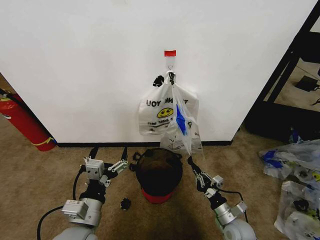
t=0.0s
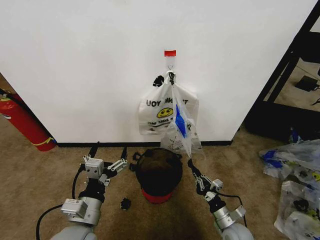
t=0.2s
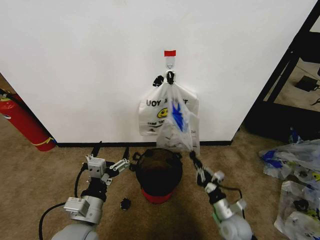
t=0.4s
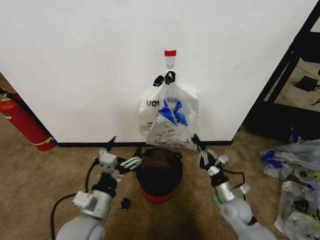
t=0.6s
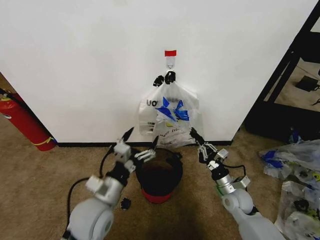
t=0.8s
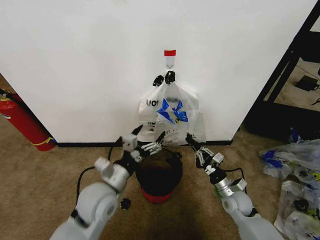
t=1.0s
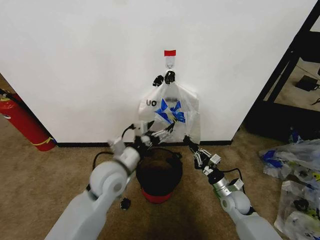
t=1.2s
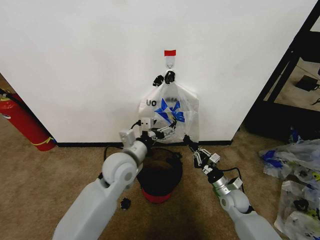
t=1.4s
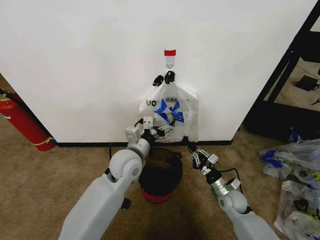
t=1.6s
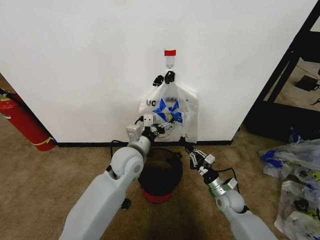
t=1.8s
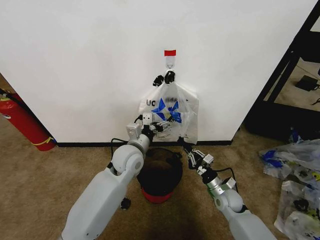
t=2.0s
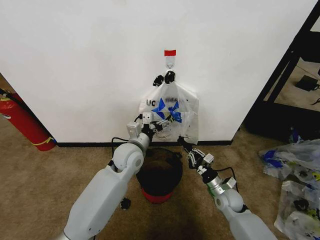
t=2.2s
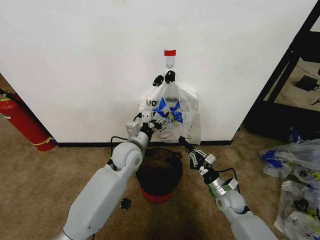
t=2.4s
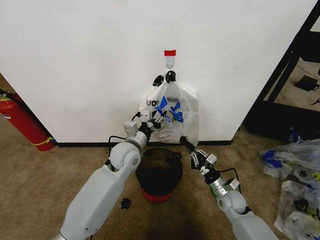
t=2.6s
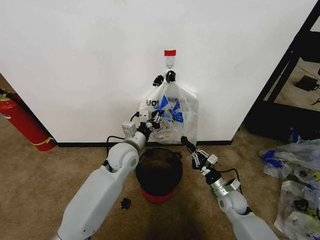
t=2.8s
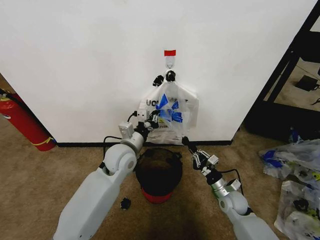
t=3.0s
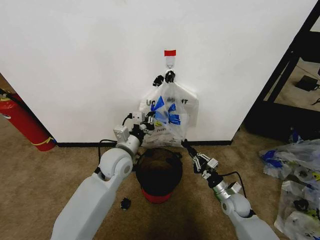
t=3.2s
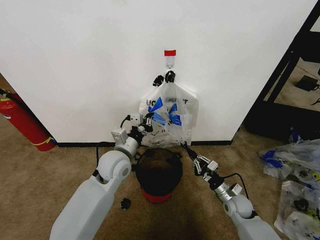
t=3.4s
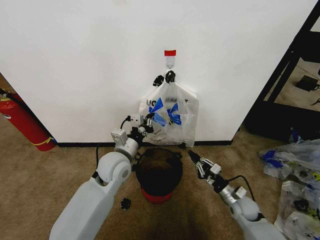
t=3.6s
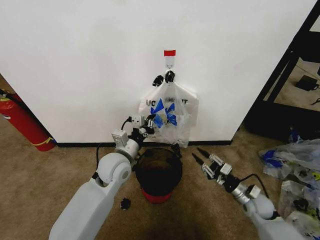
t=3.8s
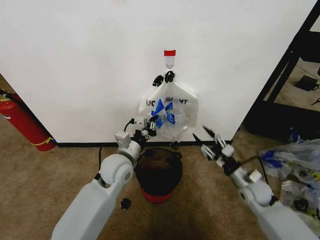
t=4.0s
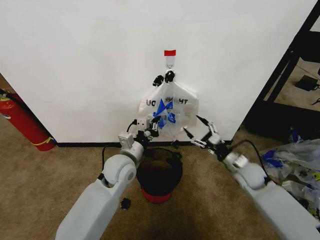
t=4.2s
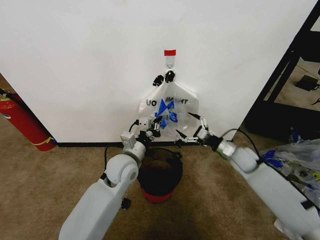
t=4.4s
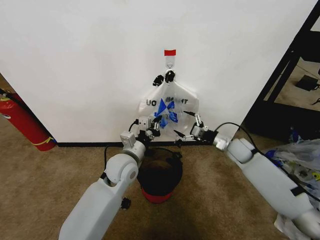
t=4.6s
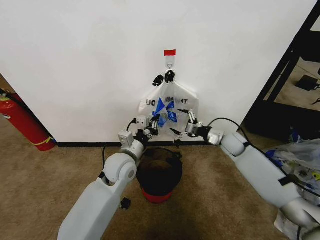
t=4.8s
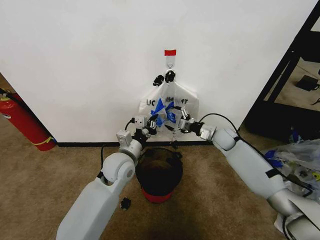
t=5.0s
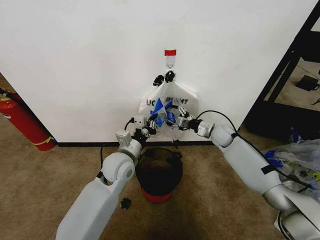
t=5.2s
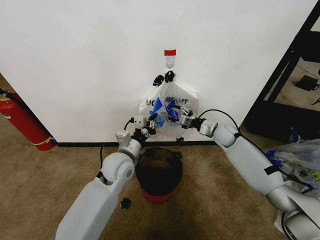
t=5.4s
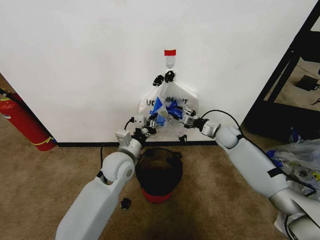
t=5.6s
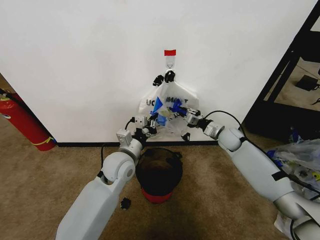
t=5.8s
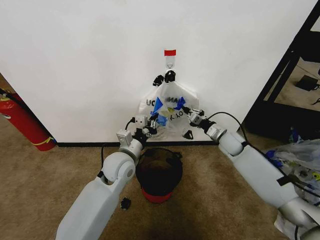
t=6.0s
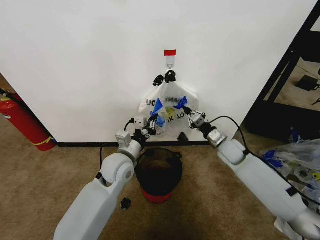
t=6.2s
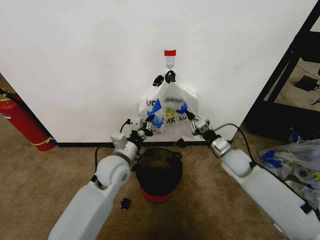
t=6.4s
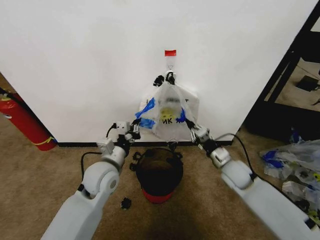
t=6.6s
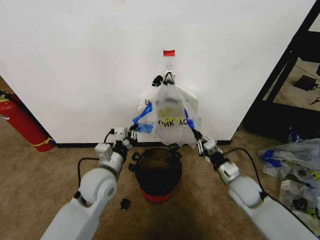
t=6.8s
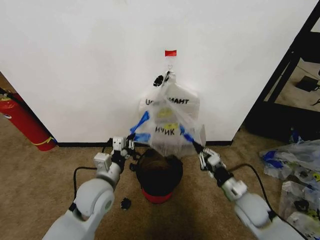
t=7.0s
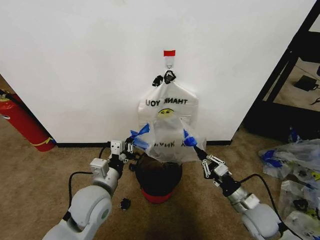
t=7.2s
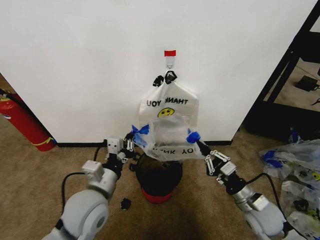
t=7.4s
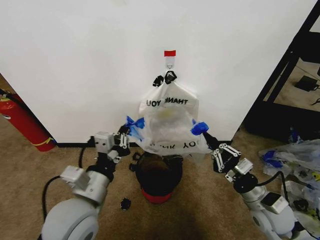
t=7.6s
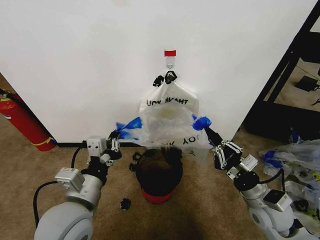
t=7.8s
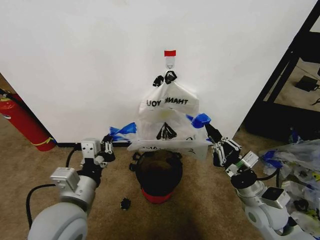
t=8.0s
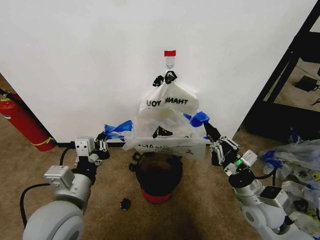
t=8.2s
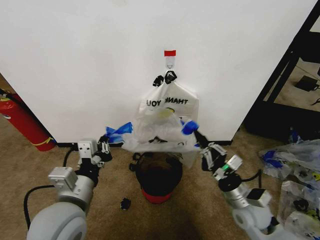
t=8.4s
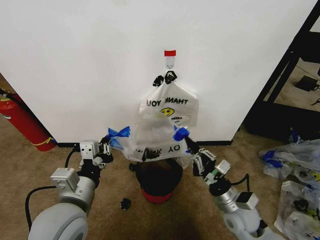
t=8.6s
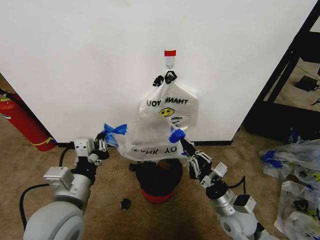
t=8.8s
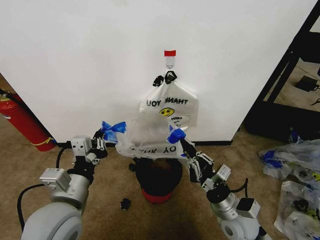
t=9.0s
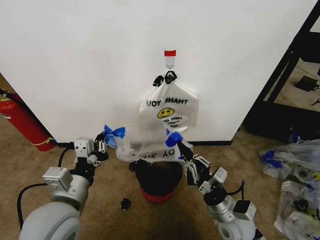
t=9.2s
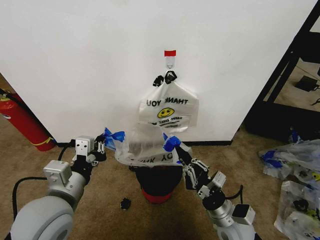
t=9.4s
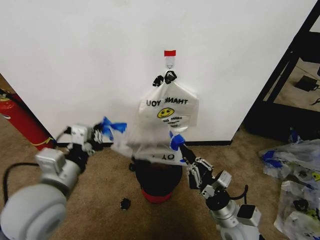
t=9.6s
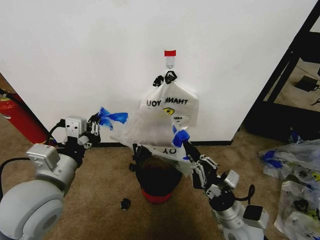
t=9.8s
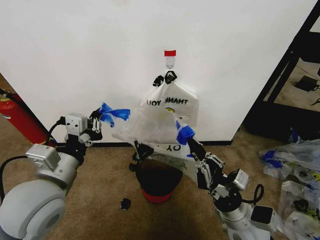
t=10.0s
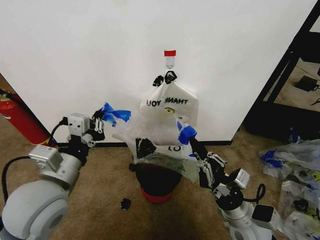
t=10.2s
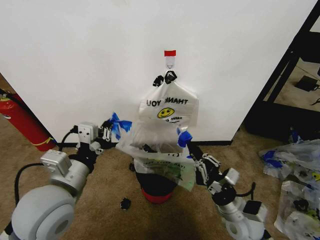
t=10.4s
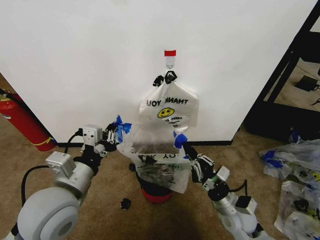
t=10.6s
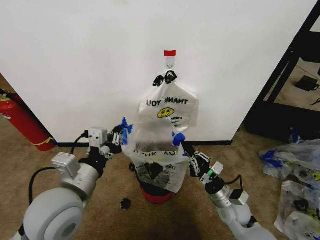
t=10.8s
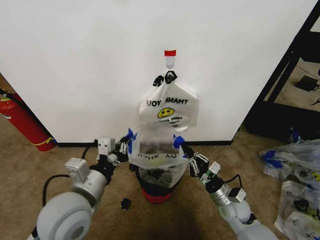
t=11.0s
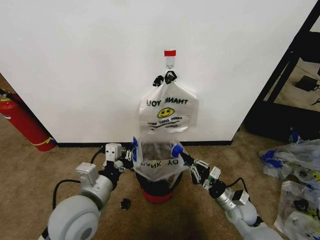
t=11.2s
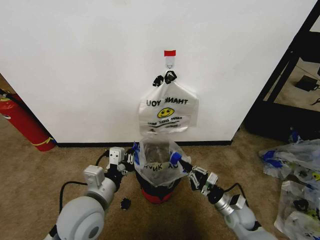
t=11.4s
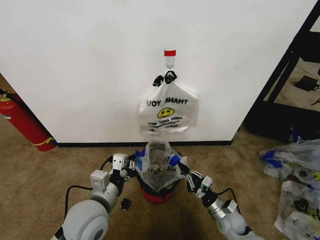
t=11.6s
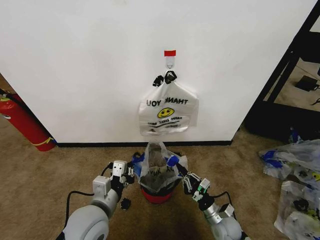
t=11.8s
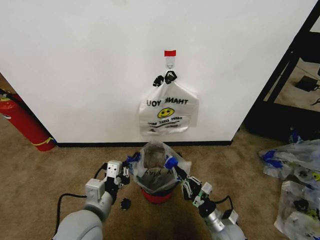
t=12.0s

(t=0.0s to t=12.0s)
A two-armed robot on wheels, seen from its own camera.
Task of the whole recording: Pick up the garbage bag from the wall and place it over the trash bin.
t=0.0s - t=1.6s: The left gripper goes approximately 20 cm forward and to the right; the right gripper is displaced forward by roughly 10 cm.
t=1.6s - t=3.0s: The left gripper closes.
t=3.0s - t=4.4s: The right gripper heads upward and forward, covering roughly 15 cm, and opens its fingers.
t=4.4s - t=6.0s: The right gripper goes some 5 cm forward, and closes its fingers.
t=6.0s - t=7.6s: The left gripper goes roughly 15 cm backward; the right gripper goes approximately 25 cm backward.
t=7.6s - t=9.0s: The right gripper is displaced to the left by approximately 10 cm.
t=10.4s - t=12.0s: The grippers both shift downward by some 10 cm.

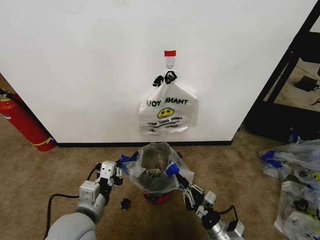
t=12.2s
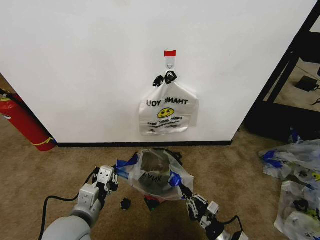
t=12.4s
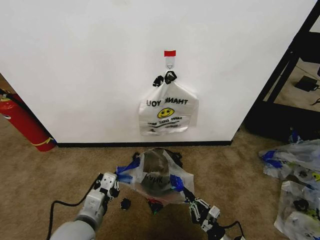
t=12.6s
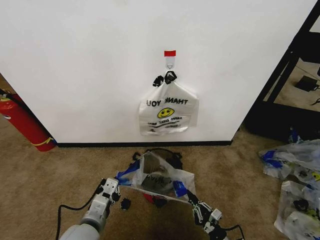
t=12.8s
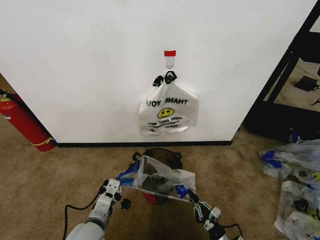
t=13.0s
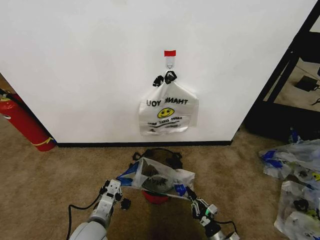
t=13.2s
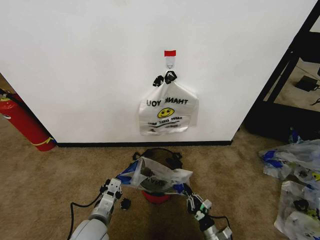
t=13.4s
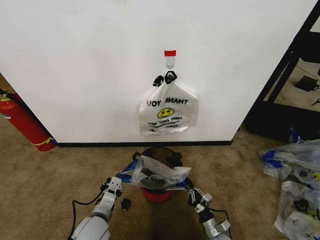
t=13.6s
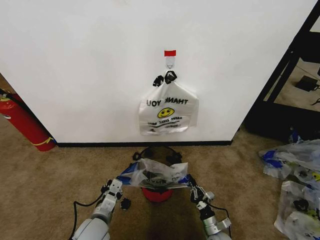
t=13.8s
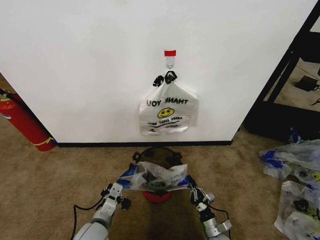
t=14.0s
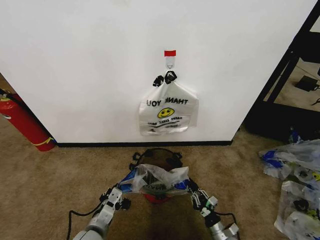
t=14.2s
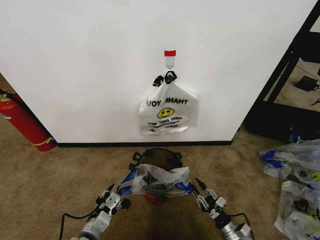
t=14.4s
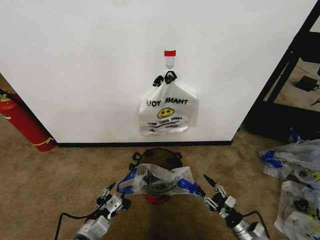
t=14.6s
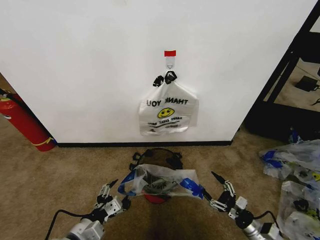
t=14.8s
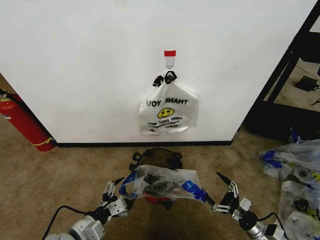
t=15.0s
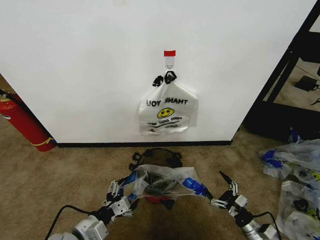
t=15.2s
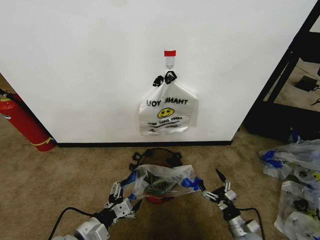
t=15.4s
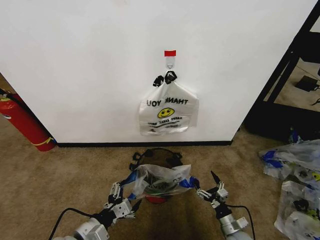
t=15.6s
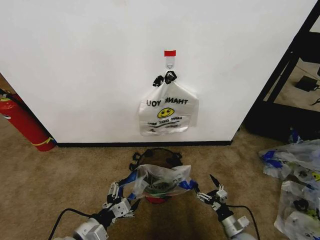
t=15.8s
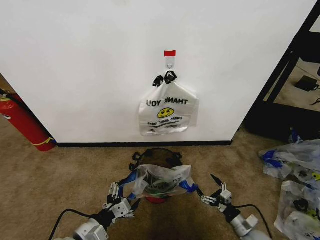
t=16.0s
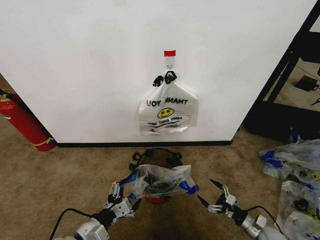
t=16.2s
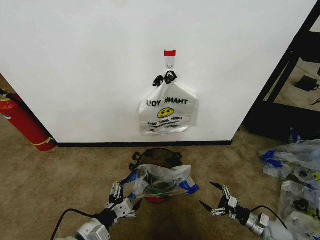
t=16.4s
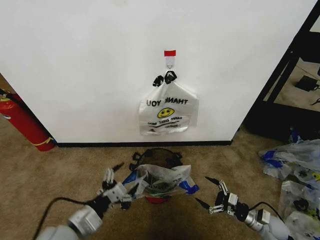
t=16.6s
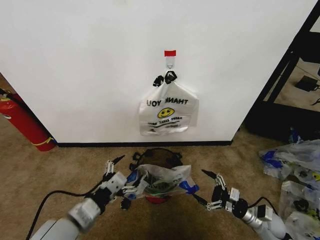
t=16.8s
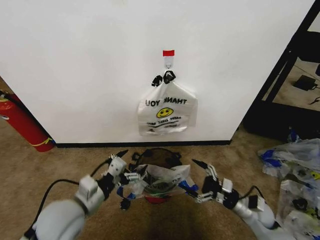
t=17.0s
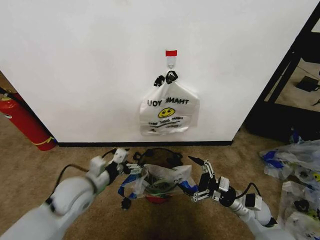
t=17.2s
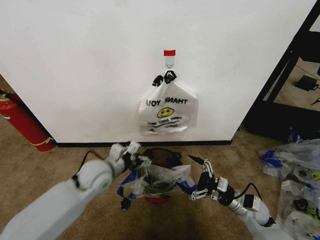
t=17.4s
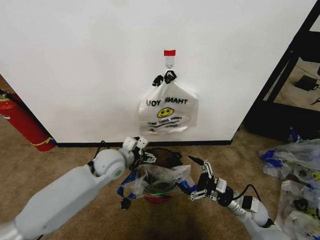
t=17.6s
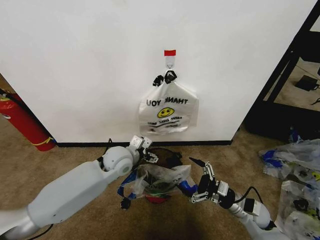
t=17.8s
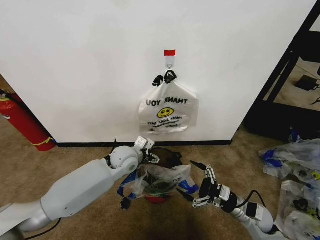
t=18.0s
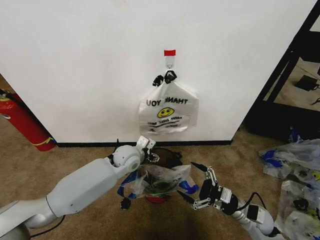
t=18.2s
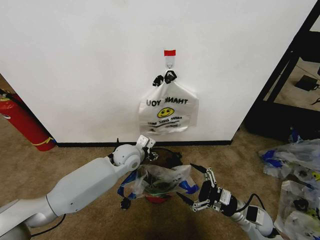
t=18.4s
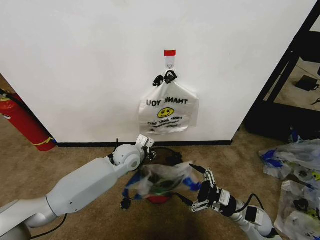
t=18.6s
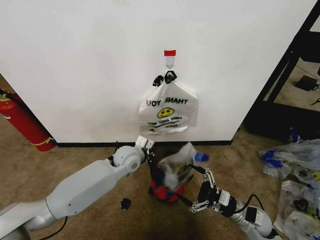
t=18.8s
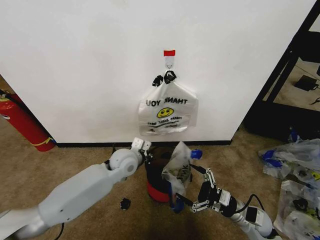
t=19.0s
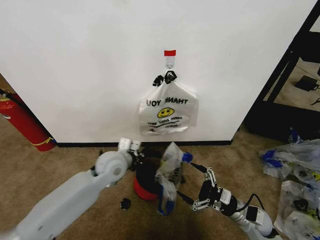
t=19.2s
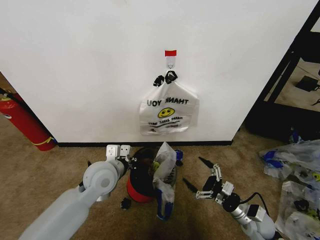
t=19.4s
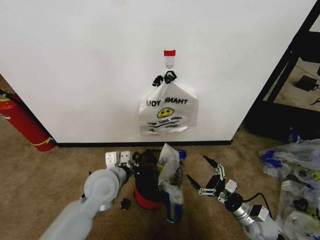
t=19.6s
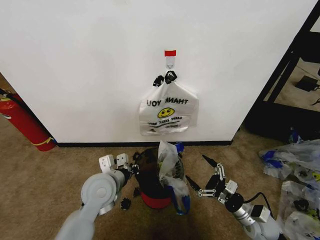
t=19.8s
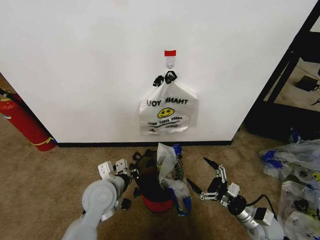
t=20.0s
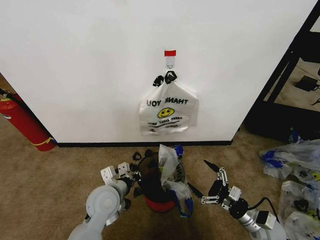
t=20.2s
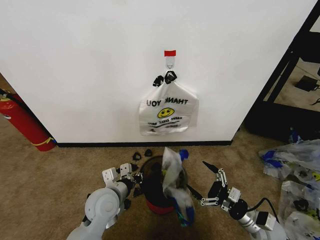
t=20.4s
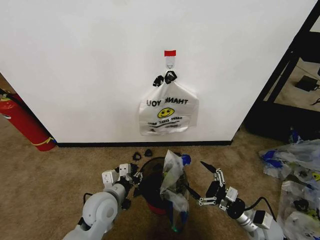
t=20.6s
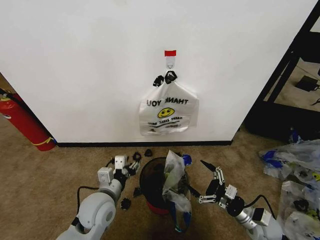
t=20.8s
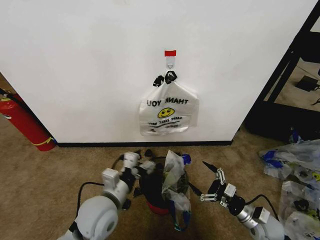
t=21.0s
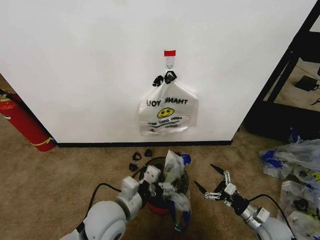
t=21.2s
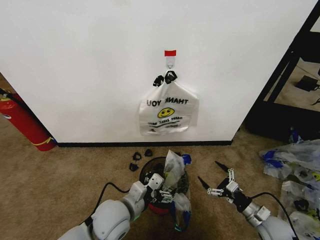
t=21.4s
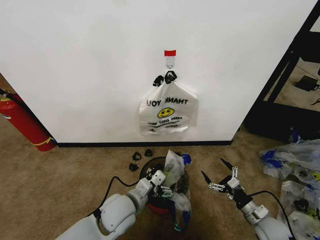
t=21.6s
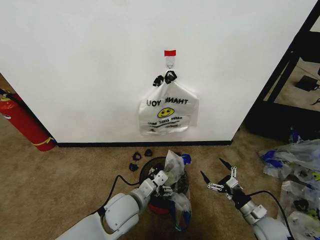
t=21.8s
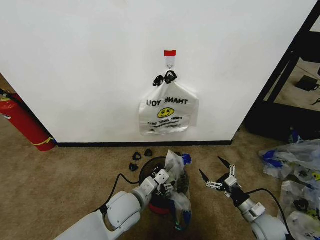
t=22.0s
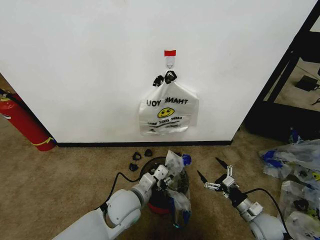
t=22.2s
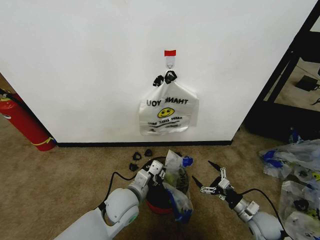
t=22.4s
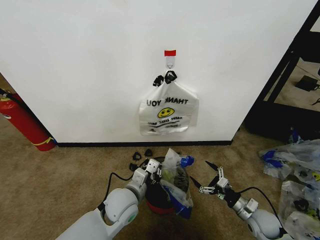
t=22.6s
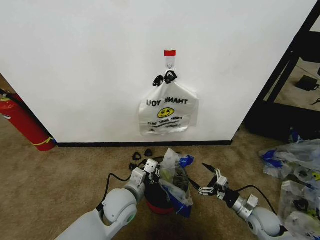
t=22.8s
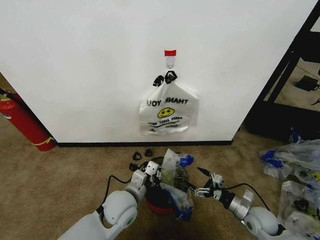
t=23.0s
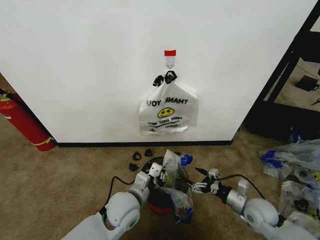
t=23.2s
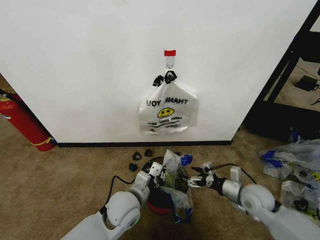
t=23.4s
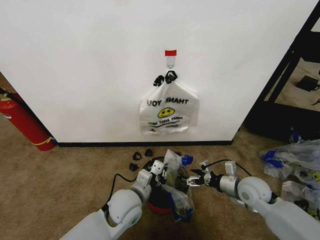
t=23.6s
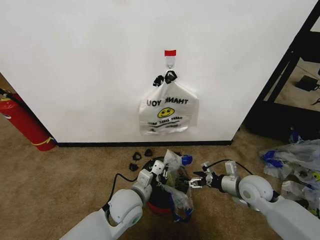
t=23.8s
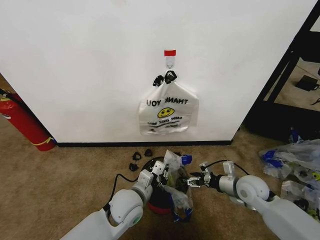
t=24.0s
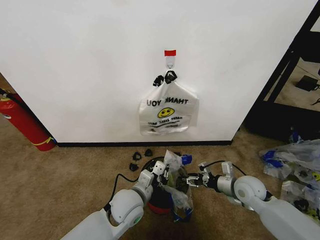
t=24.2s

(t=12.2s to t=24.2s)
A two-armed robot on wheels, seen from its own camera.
Task of the whole recording: Pick up the garbage bag from the wall and place it over the trash bin.
t=12.2s - t=13.8s: Both grippers move downward, roughly 15 cm.
t=13.8s - t=15.2s: The left gripper travels upward and backward by approximately 10 cm, and opens. The right gripper is displaced to the right and upward by approximately 15 cm, and opens its fingers.
t=15.2s - t=16.6s: The right gripper travels forward and to the right by some 10 cm.
t=16.6s - t=18.2s: The right gripper is displaced to the left and upward by approximately 15 cm. The left gripper travels forward and to the right by roughly 30 cm.
t=18.2s - t=19.8s: The left gripper heads backward, covering approximately 15 cm, and closes its fingers.
t=19.8s - t=21.2s: The right gripper changes place by roughly 5 cm; the left gripper goes roughly 10 cm backward, and opens.
t=21.2s - t=22.6s: The left gripper shifts approximately 10 cm forward and downward, and closes.
t=22.6s - t=24.2s: The right gripper moves upward, forward and to the left, roughly 15 cm, and closes up.
